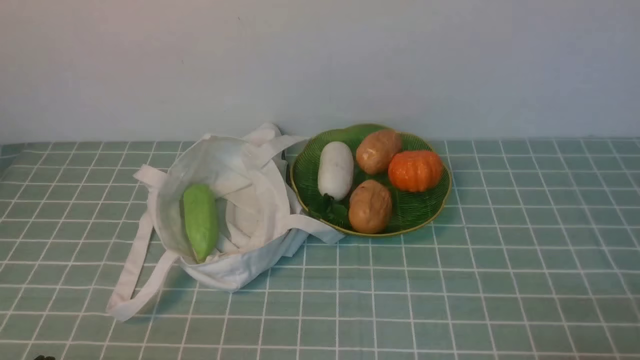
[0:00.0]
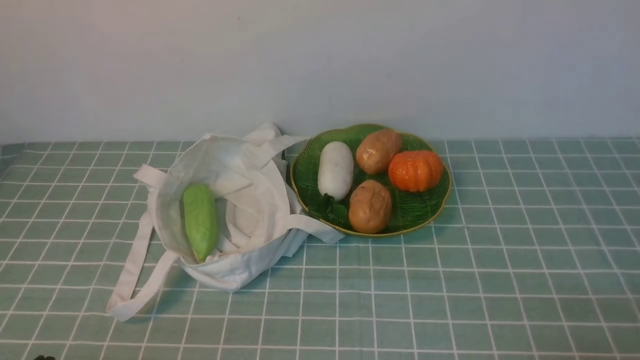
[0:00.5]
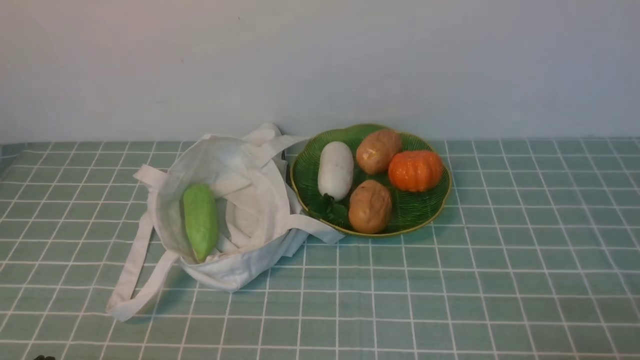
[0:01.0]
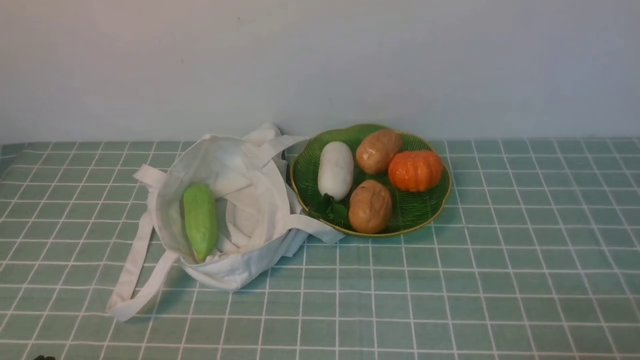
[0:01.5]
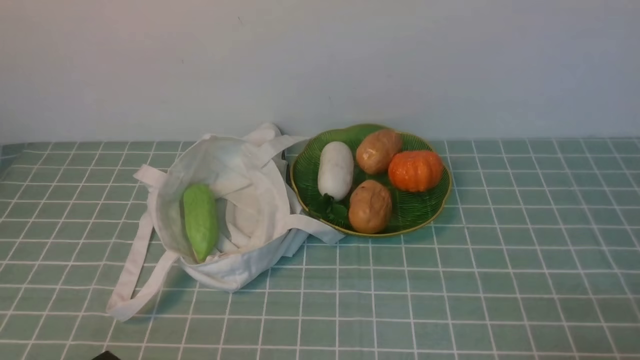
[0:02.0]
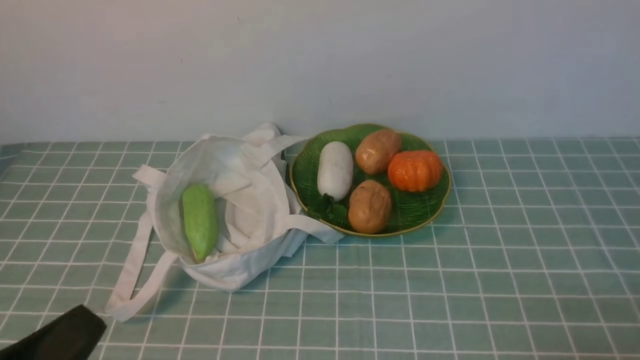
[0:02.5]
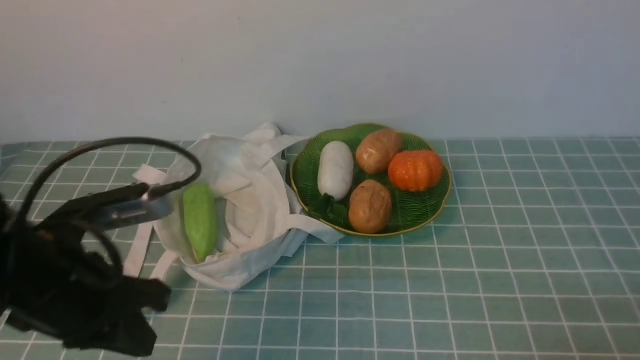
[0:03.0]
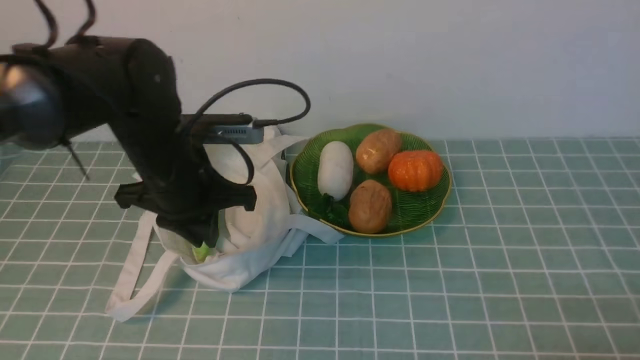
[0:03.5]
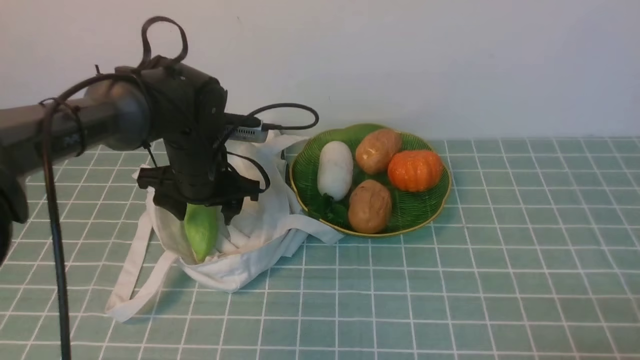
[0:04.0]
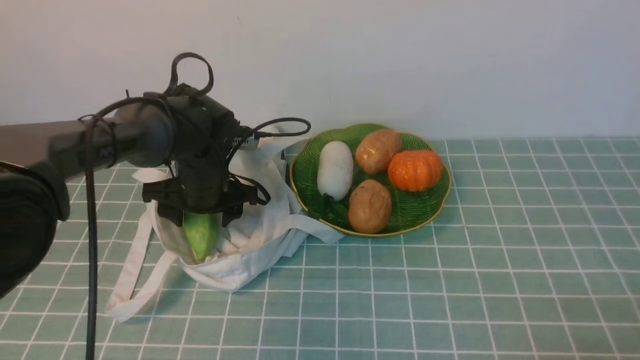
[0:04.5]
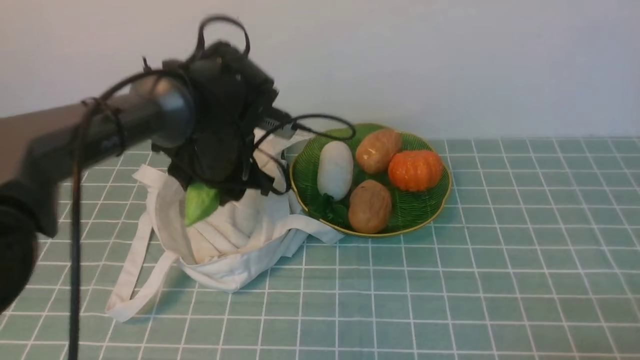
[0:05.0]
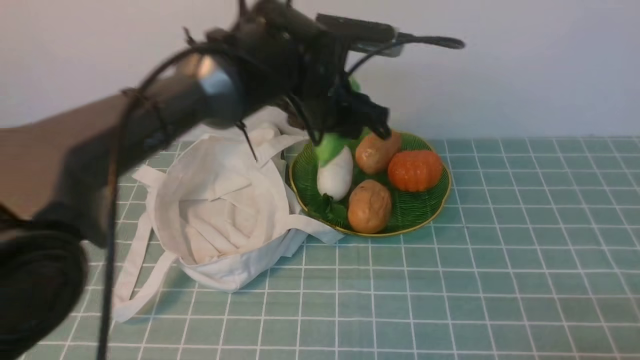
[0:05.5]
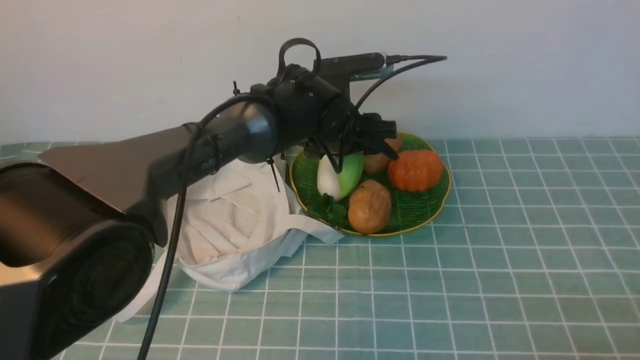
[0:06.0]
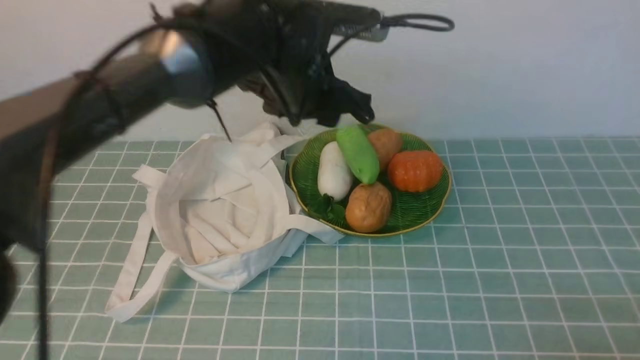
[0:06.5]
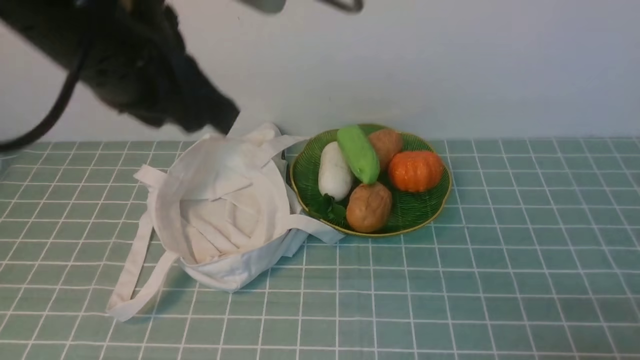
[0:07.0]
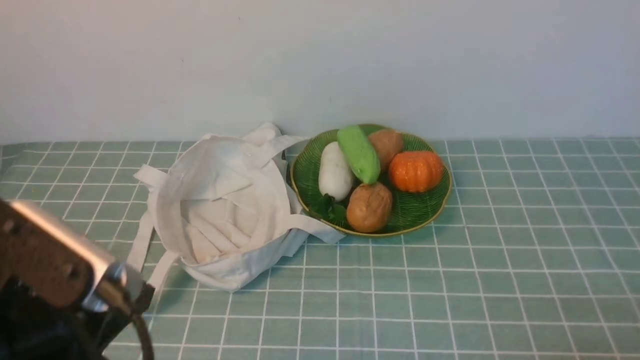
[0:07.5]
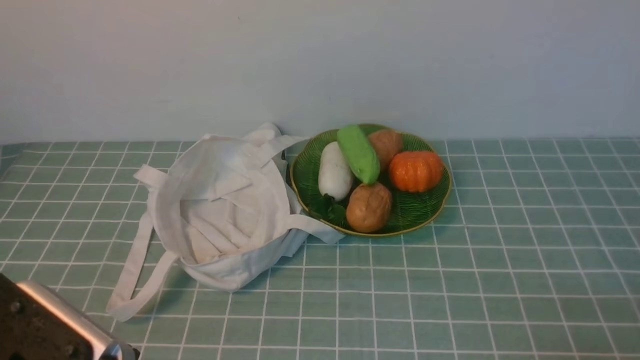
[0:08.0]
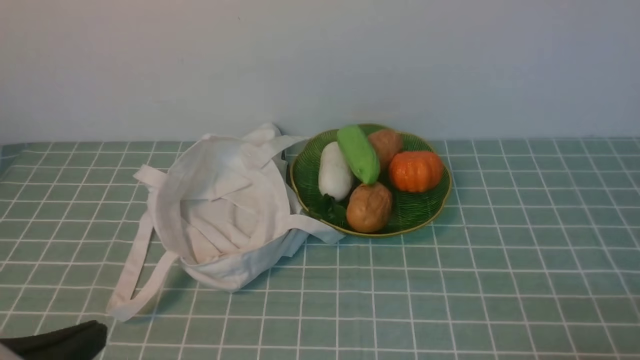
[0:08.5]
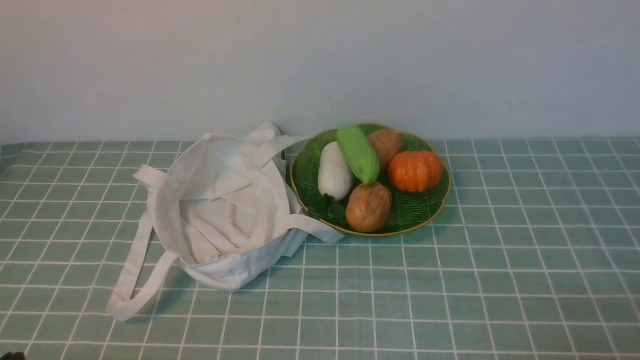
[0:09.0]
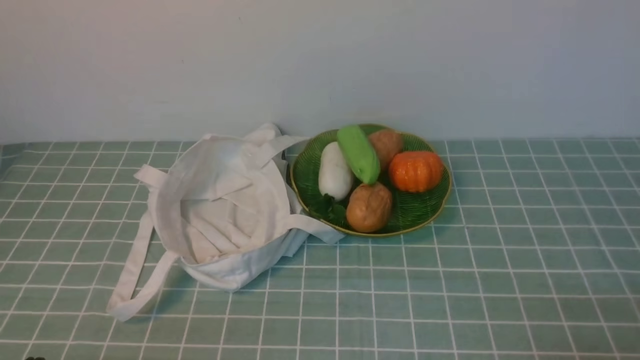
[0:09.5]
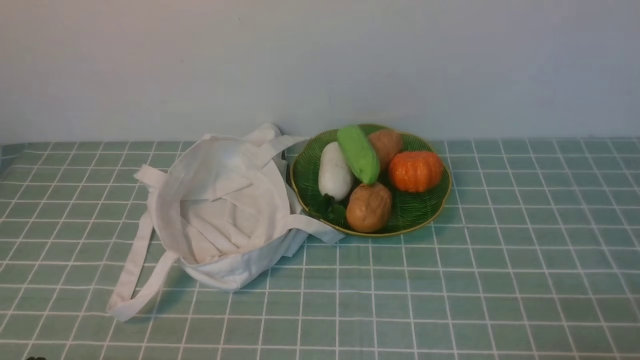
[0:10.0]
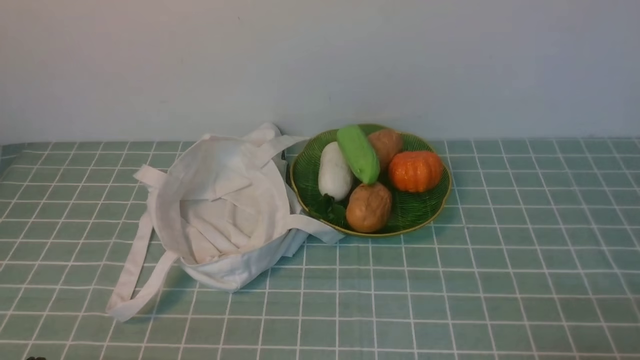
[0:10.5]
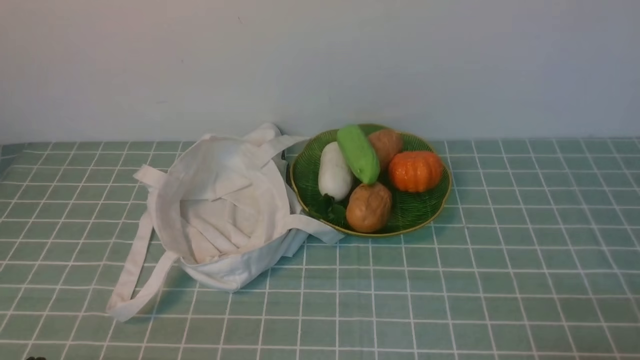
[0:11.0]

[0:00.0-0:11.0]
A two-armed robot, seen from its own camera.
Task of the whole recording: take vegetables from cloth bag on blue coffee tablecloth place on plate.
Step, 0:00.0 to 0:04.5: Grasp the bitter melon with left gripper.
Step, 0:05.0 to 0:06.0: Place the bitter melon on the plate with left gripper.
0:02.0 to 0:03.5: The left gripper moves forward, approximately 25 cm.
0:03.5 to 0:05.5: The left gripper moves to the right and forward, approximately 15 cm, and opens.
0:05.5 to 0:07.5: The left gripper is displaced backward and to the left by roughly 30 cm, and closes up.
0:07.5 to 0:09.0: The left gripper shifts about 15 cm downward, backward and to the left.
